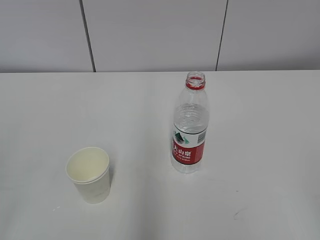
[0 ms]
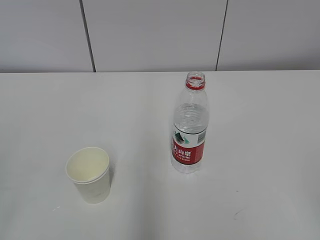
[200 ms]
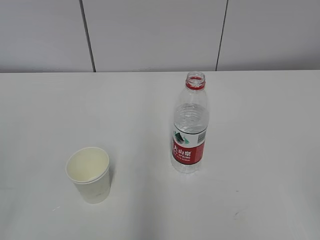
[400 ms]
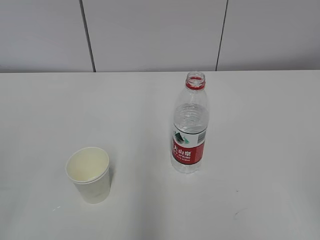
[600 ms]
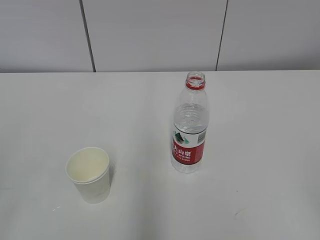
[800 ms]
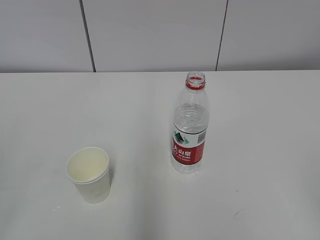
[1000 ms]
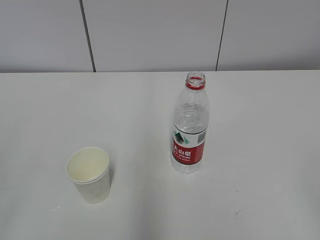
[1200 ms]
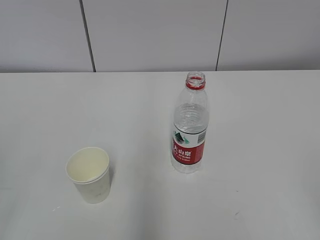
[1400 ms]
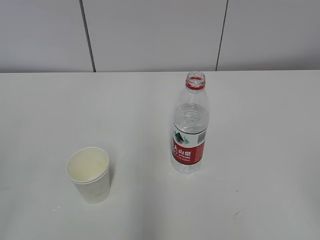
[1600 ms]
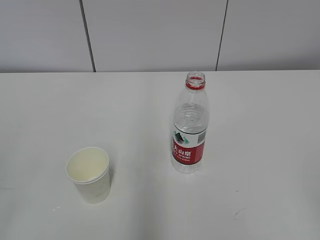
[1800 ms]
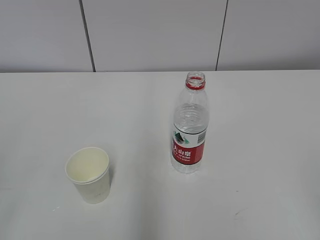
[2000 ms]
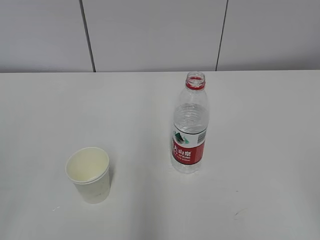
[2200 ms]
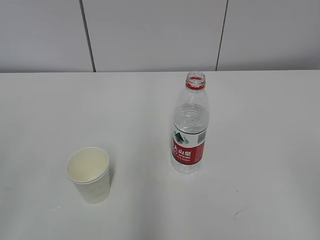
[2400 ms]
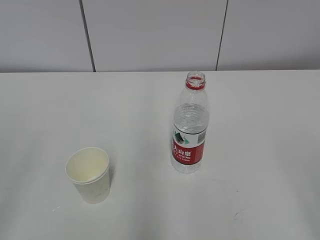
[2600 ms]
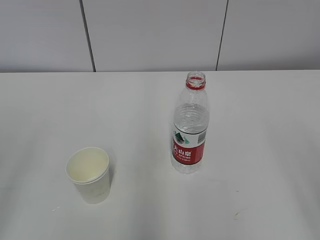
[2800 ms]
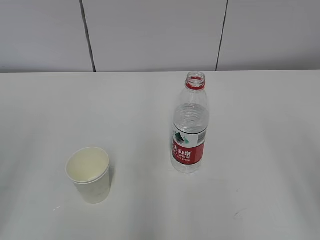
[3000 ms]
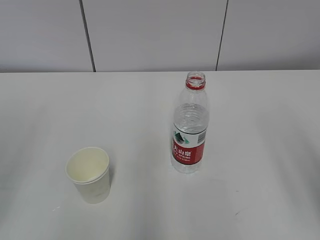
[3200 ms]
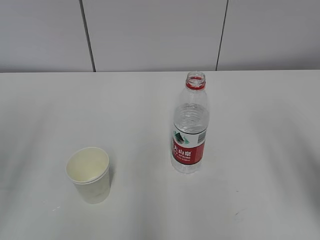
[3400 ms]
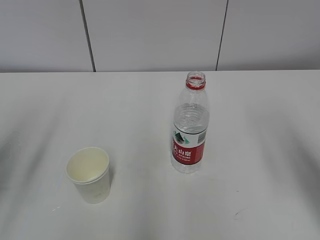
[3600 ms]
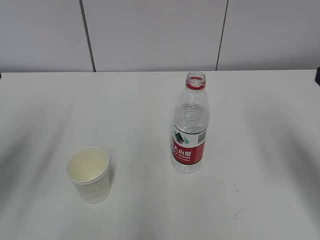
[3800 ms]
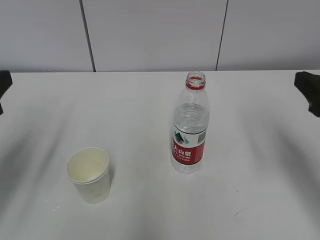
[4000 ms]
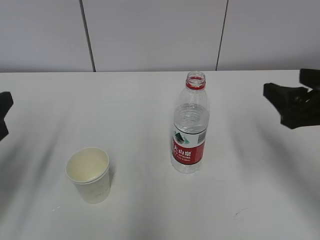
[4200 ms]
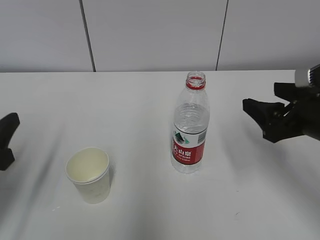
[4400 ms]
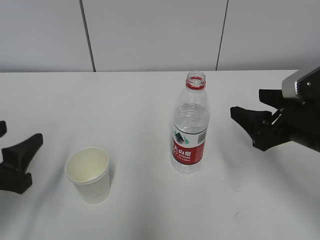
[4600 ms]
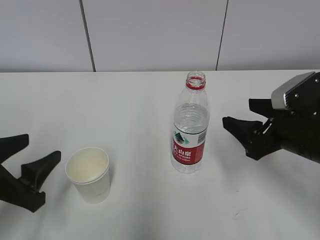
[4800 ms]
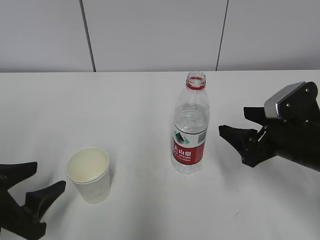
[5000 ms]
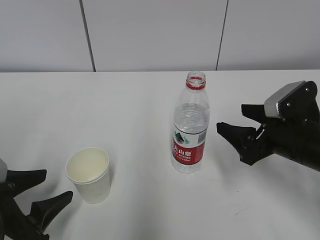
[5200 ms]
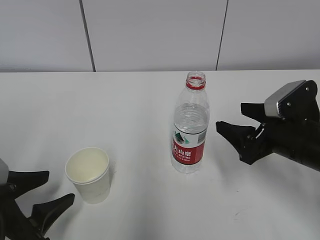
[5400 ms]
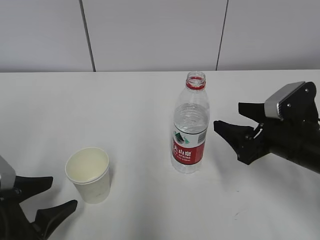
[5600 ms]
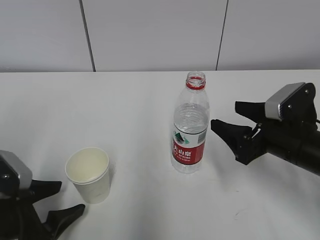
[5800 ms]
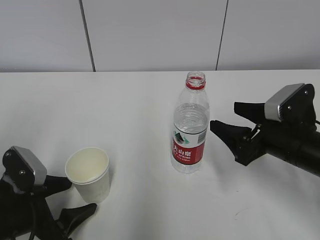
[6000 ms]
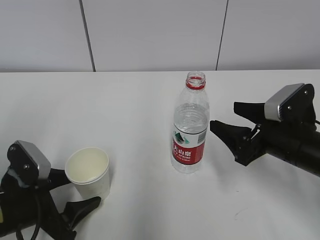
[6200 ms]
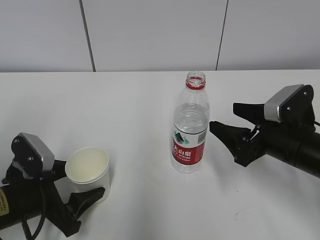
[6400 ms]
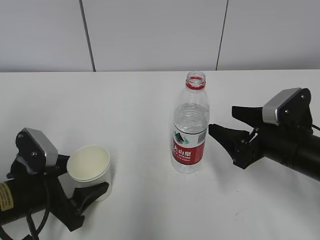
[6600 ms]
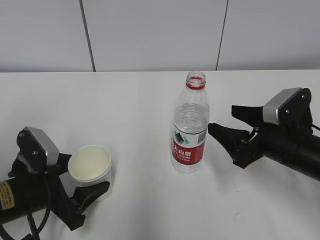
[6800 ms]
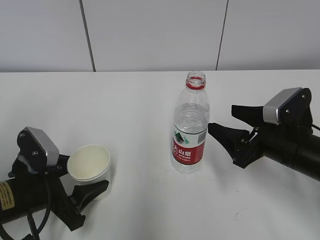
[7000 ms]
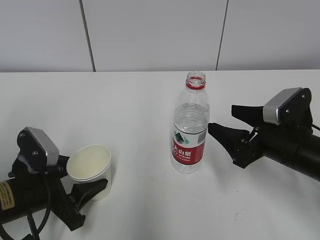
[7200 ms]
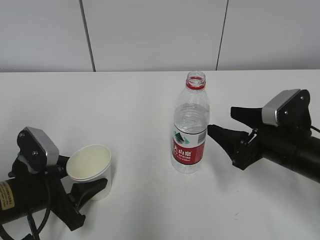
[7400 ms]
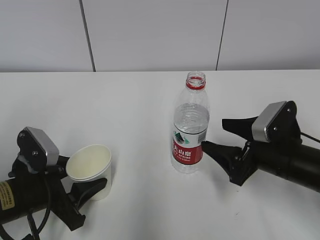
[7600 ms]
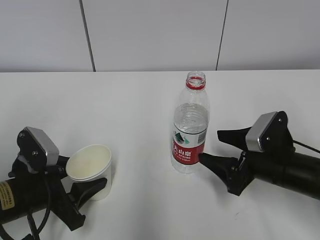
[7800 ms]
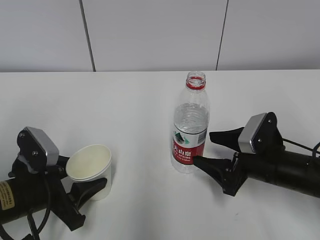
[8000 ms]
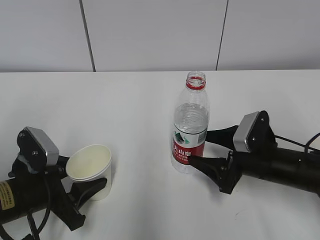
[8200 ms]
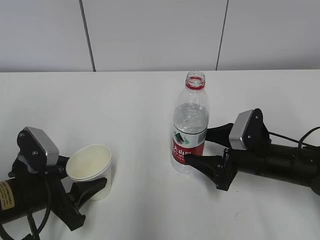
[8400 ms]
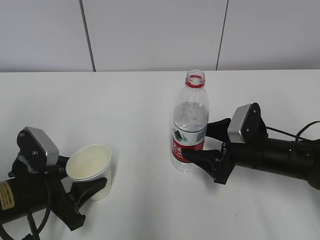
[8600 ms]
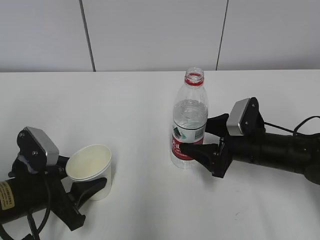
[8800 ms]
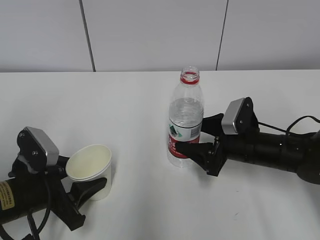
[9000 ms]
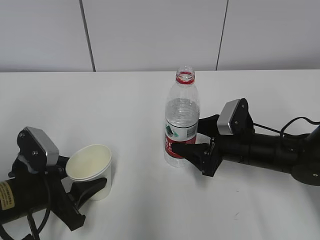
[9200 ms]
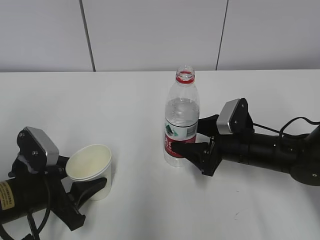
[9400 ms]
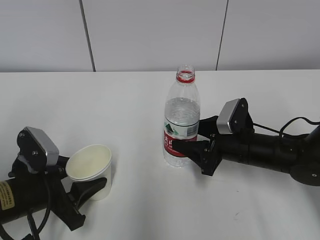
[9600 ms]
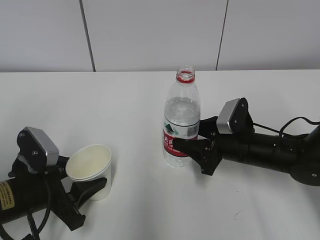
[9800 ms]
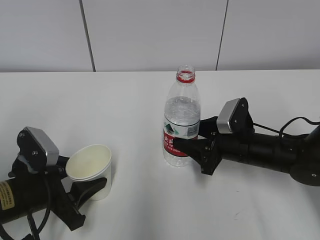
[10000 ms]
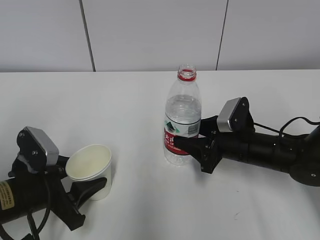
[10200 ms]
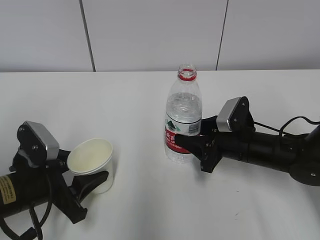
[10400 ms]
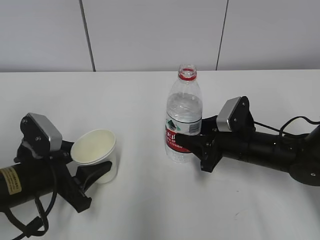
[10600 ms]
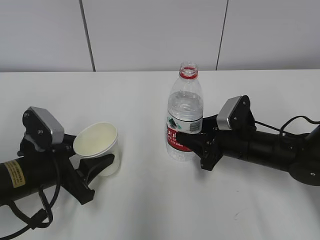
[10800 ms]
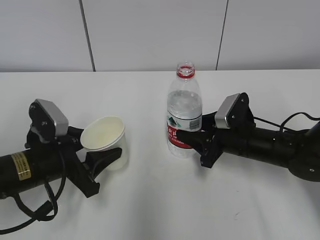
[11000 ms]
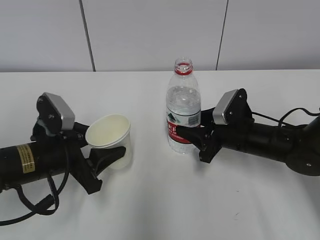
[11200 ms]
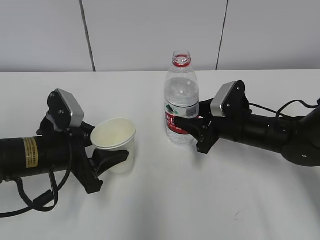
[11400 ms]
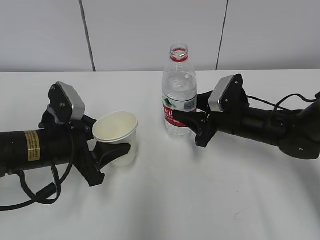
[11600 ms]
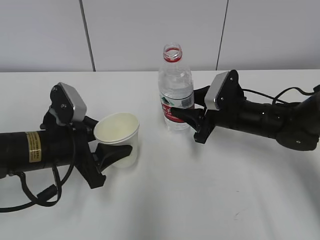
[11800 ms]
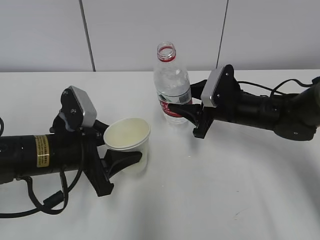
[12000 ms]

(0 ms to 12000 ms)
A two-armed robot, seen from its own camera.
Step, 0 ms - 8400 ms: Grab the paper cup with the left hand.
Step, 8600 ms - 9200 ms: Grab the water bottle with the right hand.
3000 ms - 4400 ms: The right gripper travels forward and downward by approximately 20 cm, while the left gripper shifts roughly 15 cm downward and forward.
4400 ms - 6000 ms: The right gripper heads downward, covering about 5 cm. Meanwhile the left gripper is displaced downward and to the right by about 10 cm.
6000 ms - 7600 ms: The grippers stay close to where they were, moving slightly.
7600 ms - 9000 ms: The right gripper is displaced forward by approximately 5 cm.
9000 ms - 10400 ms: The right gripper closes its fingers.
10400 ms - 12000 ms: The right gripper travels forward by roughly 5 cm. Meanwhile the left gripper moves about 5 cm.

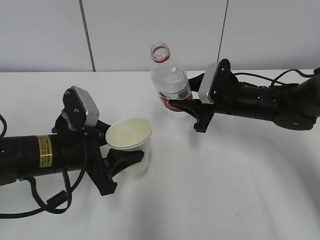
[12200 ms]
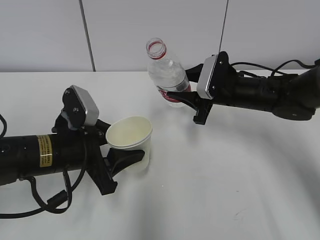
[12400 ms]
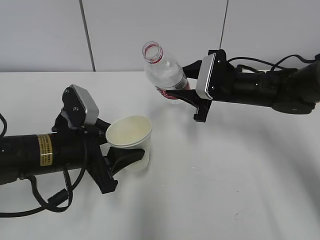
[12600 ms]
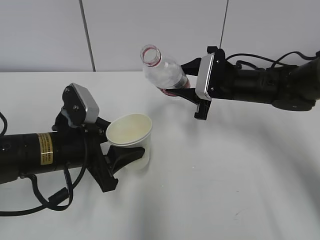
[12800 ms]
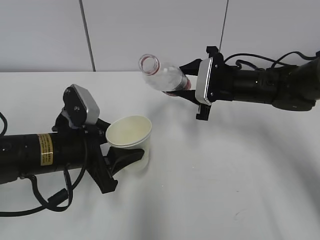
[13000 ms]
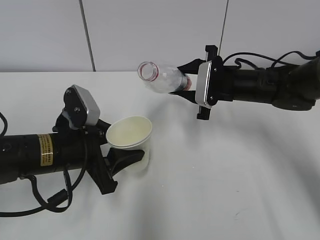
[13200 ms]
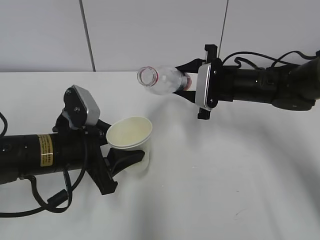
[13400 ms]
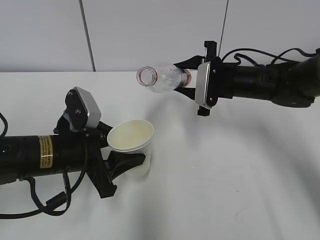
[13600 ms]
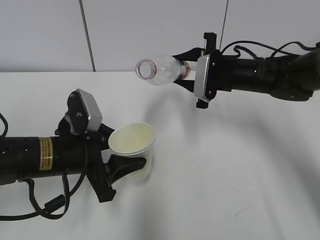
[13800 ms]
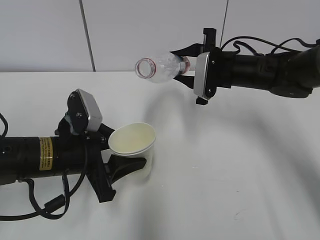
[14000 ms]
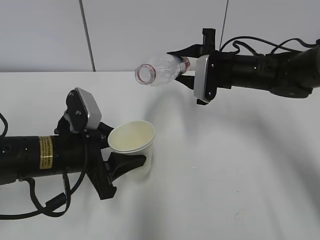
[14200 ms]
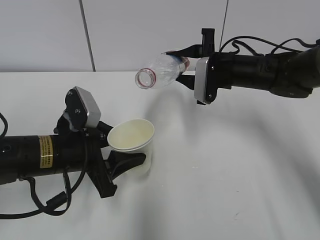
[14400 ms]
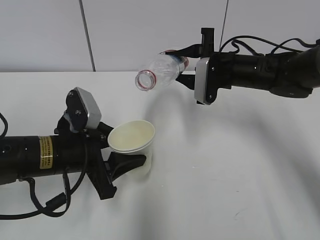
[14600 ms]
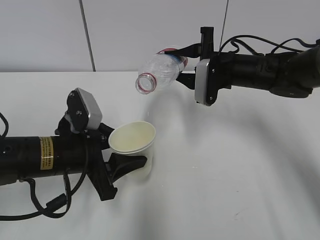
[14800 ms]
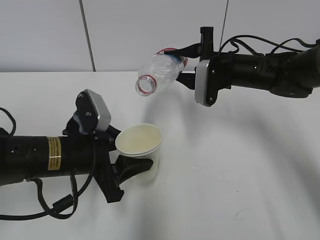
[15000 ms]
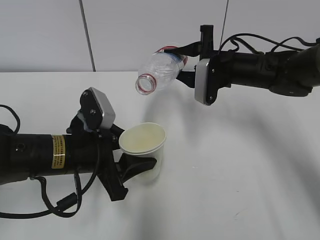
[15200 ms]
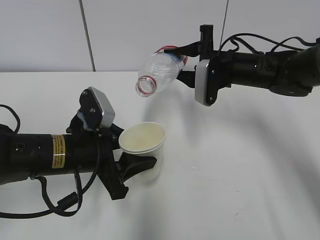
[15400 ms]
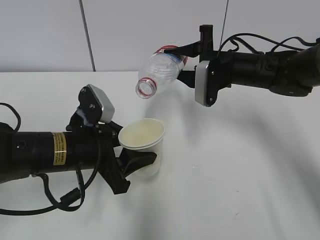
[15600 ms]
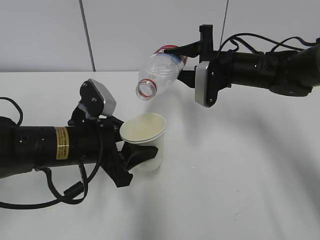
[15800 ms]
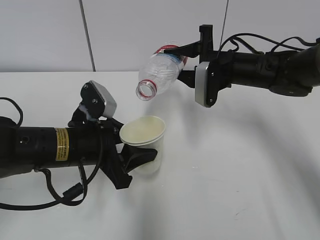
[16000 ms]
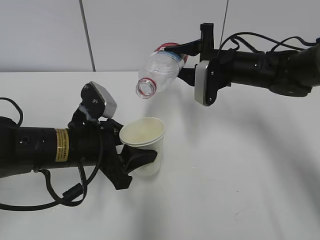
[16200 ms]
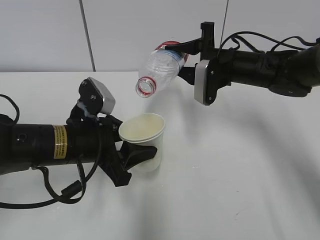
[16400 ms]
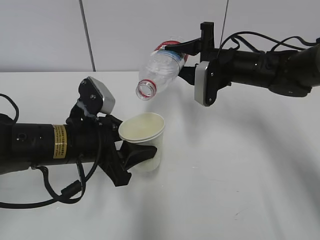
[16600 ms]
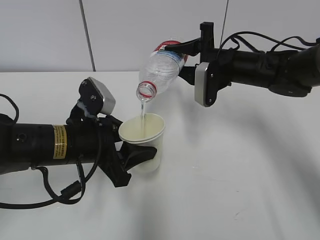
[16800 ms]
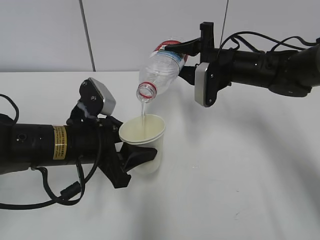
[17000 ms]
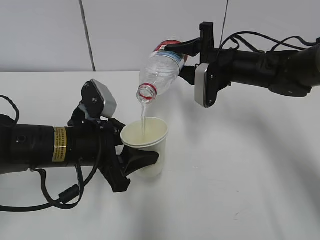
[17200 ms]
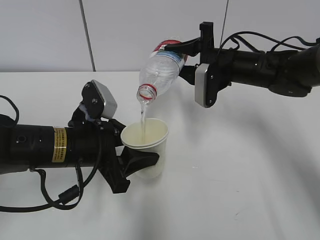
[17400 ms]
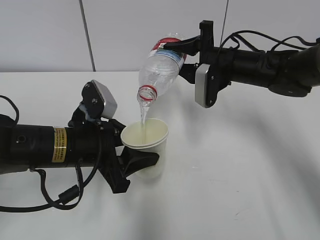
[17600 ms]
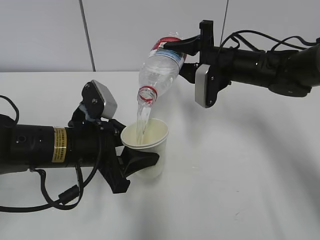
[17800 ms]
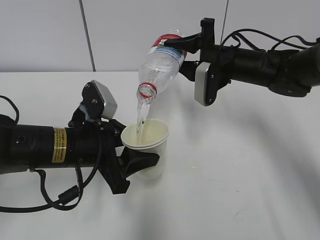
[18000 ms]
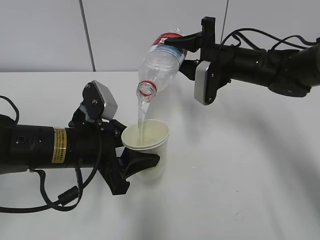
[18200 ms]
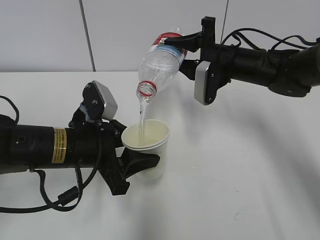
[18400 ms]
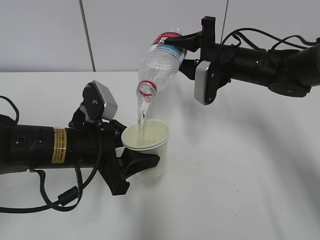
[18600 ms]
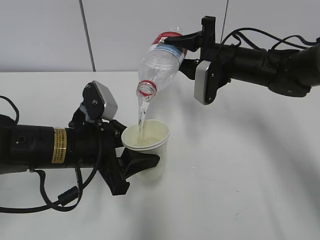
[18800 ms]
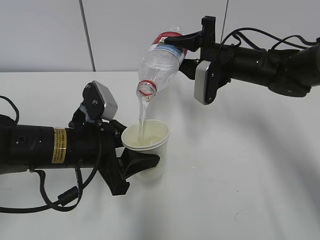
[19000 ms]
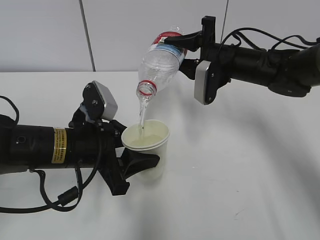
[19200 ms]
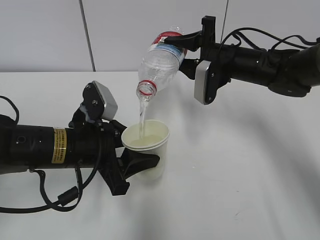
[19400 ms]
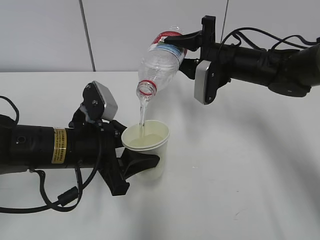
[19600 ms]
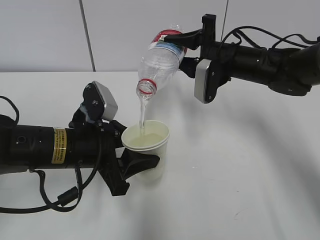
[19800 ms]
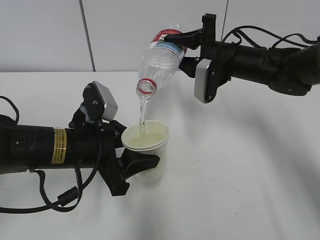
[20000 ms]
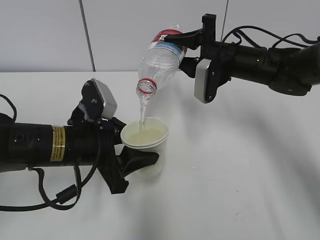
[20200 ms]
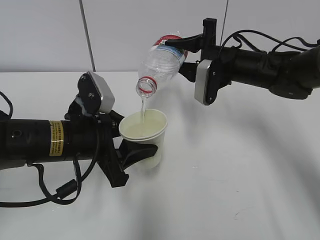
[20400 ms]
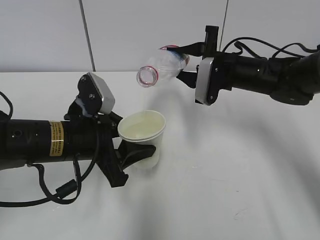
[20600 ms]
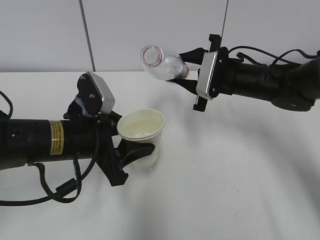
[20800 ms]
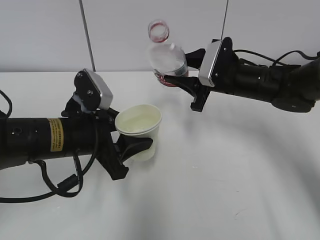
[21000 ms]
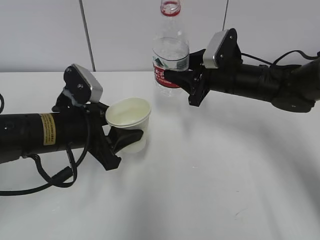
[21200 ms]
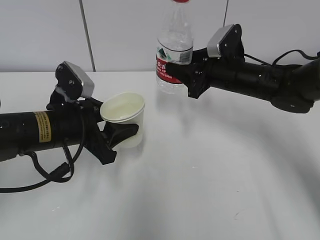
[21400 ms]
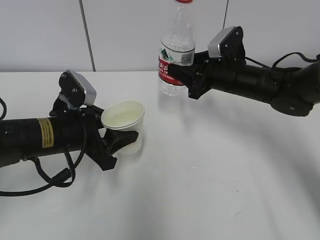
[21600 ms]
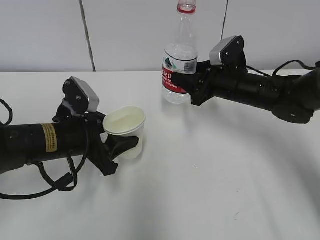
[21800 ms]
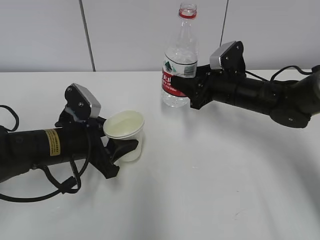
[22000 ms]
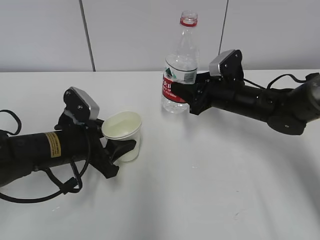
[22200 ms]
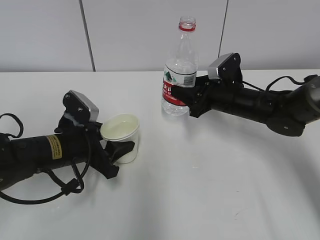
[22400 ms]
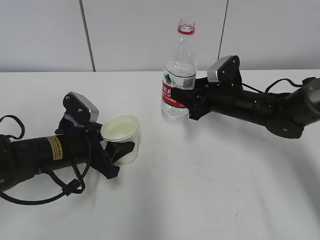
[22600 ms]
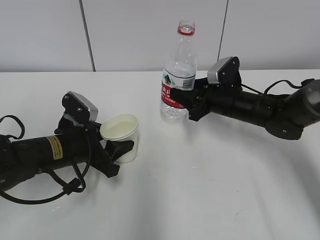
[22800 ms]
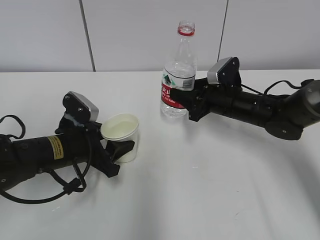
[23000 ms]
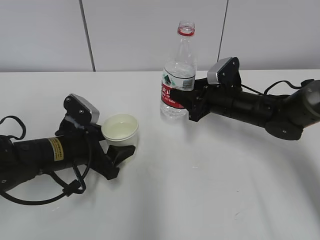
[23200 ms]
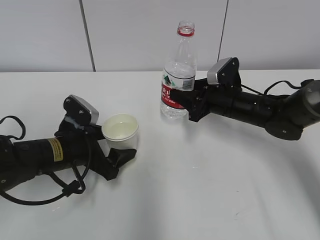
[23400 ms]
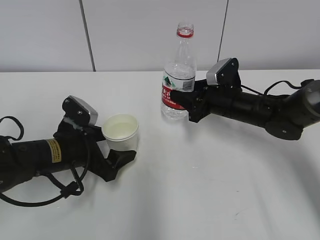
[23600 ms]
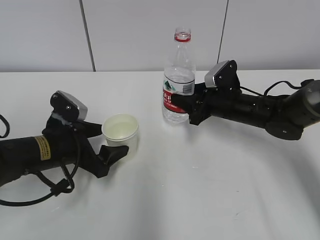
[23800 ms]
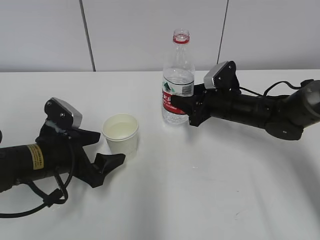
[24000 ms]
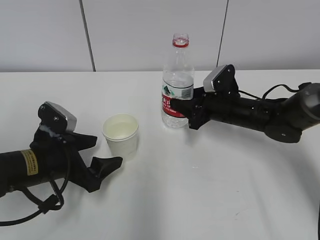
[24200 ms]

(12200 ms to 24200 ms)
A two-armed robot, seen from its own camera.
Step, 13800 ms - 17000 ms: Fill water with the left hand.
Step, 13800 ms - 17000 ms: Pour water with the right hand.
Step, 17200 ms - 17800 ms: Collect water with the right hand.
Step, 18000 ms - 19200 ms: Place the paper cup with the left hand.
Step, 19400 ms - 20800 ms: Place the water bottle with the right hand.
12200 ms - 13800 ms: The right gripper shifts by about 5 cm.
13800 ms - 15200 ms: The grippers make only small movements.
15200 ms - 18200 ms: The grippers move only a little.
18200 ms - 19800 ms: Neither gripper changes place.
21200 ms - 22600 ms: The two grippers go roughly 5 cm downward.
22600 ms - 24200 ms: The left gripper opens up.
